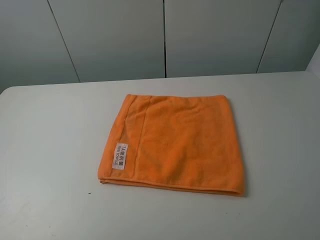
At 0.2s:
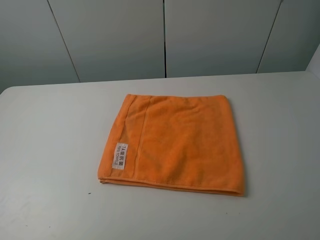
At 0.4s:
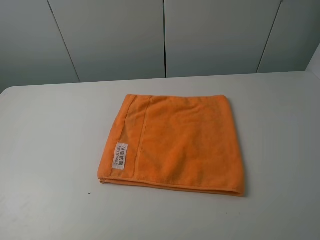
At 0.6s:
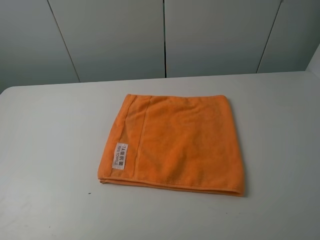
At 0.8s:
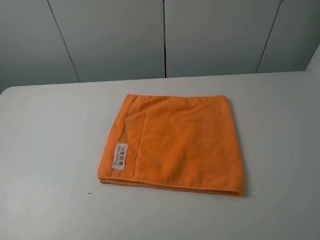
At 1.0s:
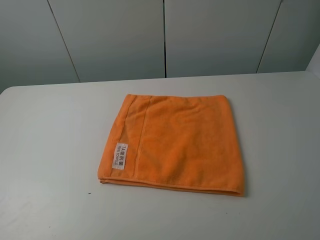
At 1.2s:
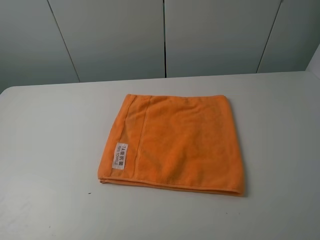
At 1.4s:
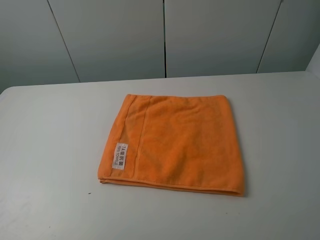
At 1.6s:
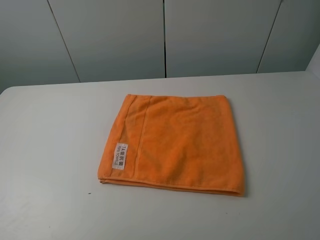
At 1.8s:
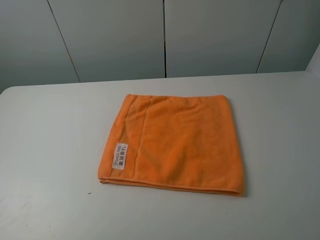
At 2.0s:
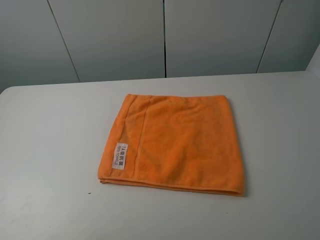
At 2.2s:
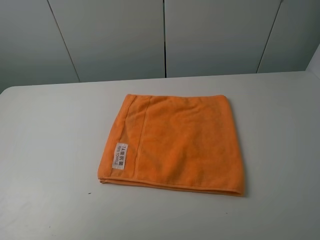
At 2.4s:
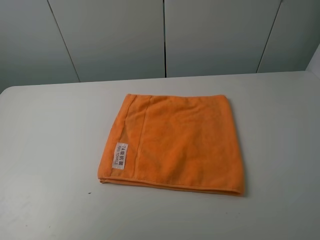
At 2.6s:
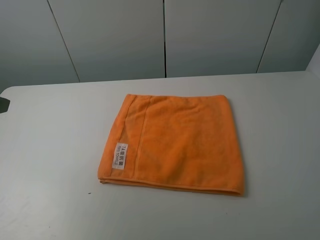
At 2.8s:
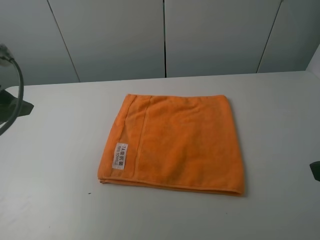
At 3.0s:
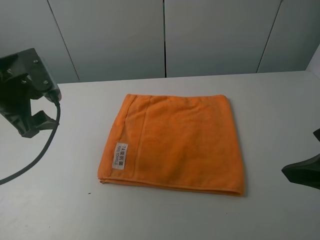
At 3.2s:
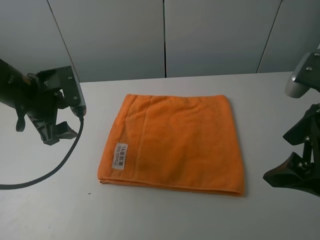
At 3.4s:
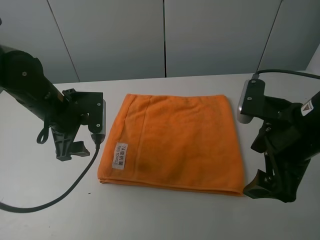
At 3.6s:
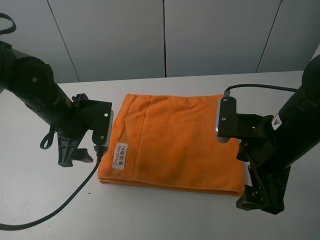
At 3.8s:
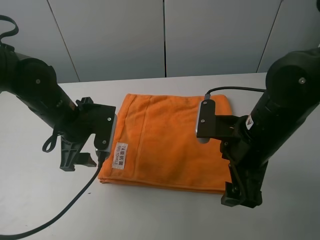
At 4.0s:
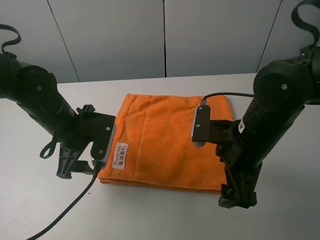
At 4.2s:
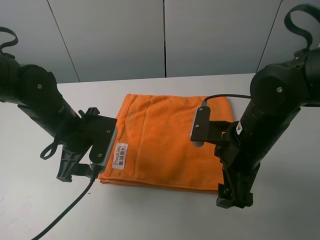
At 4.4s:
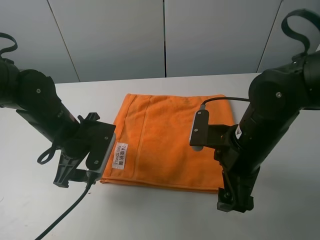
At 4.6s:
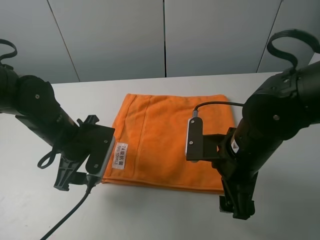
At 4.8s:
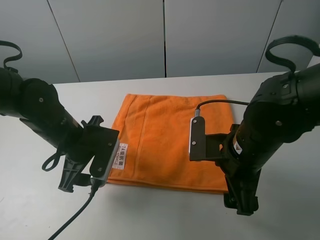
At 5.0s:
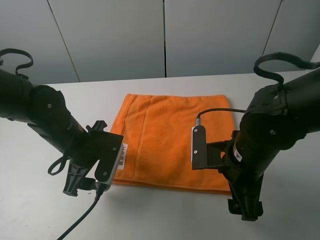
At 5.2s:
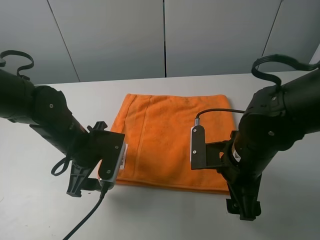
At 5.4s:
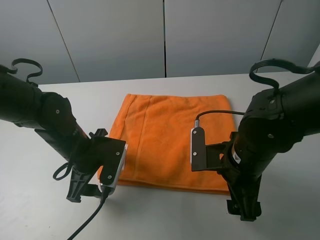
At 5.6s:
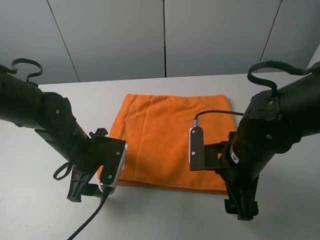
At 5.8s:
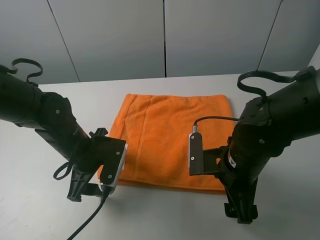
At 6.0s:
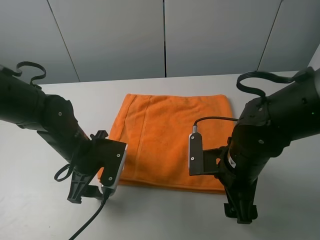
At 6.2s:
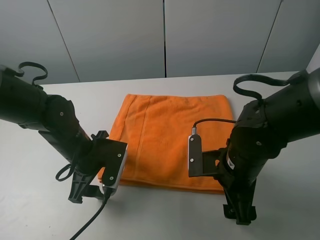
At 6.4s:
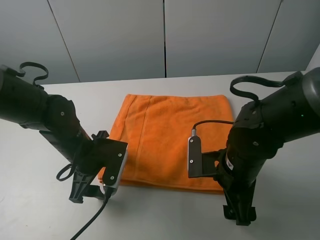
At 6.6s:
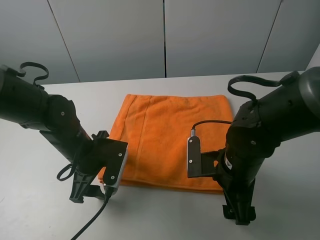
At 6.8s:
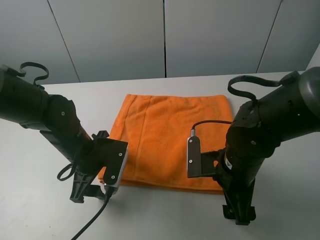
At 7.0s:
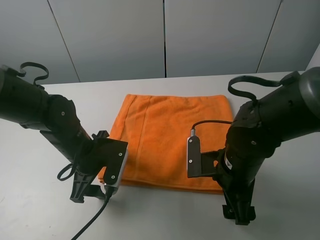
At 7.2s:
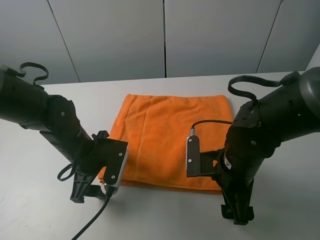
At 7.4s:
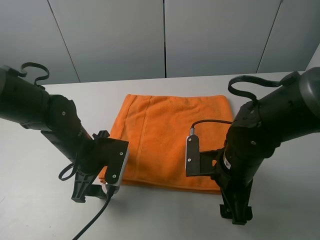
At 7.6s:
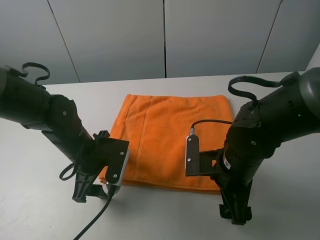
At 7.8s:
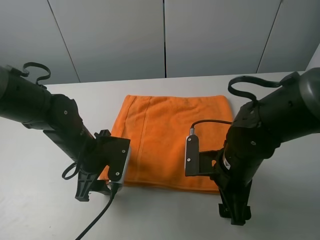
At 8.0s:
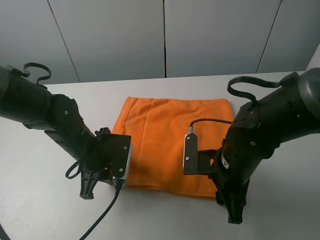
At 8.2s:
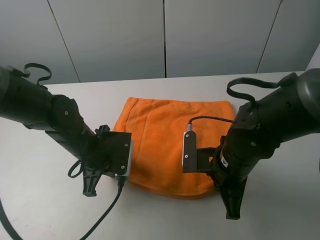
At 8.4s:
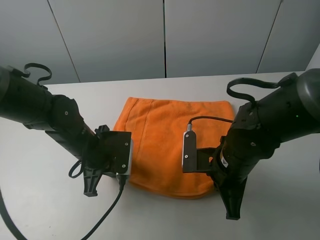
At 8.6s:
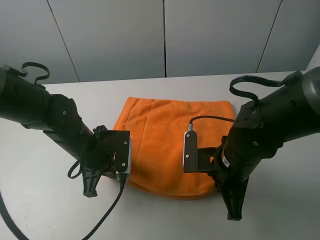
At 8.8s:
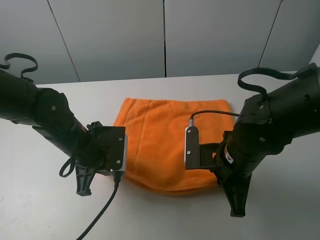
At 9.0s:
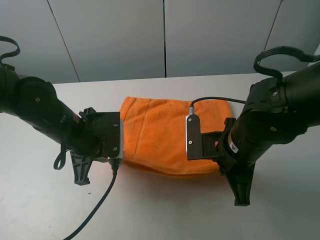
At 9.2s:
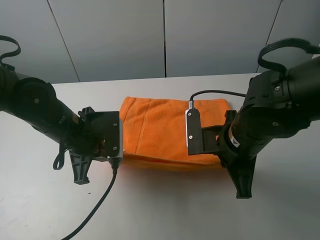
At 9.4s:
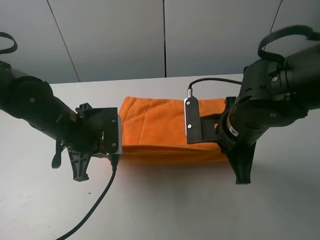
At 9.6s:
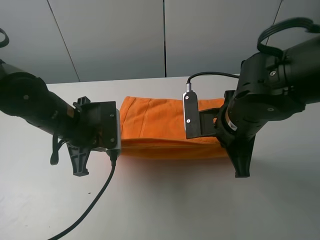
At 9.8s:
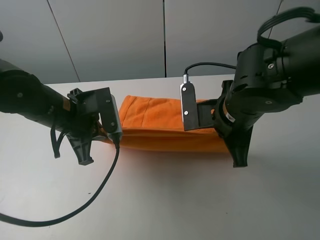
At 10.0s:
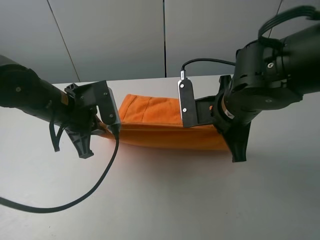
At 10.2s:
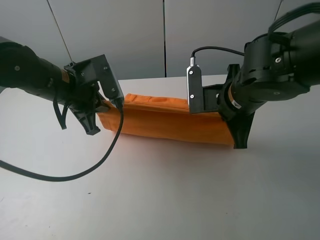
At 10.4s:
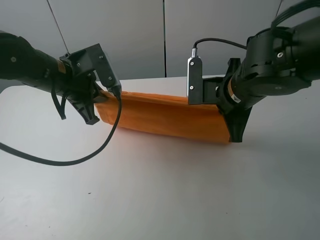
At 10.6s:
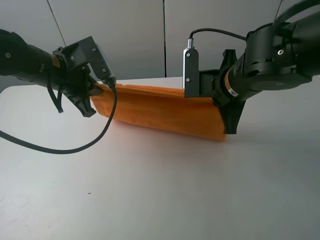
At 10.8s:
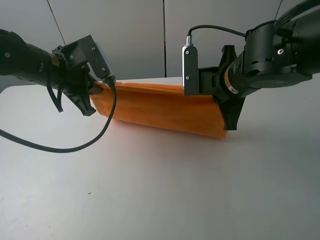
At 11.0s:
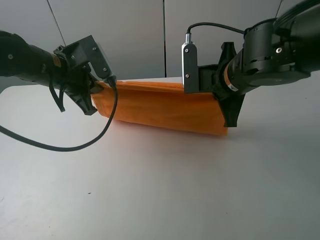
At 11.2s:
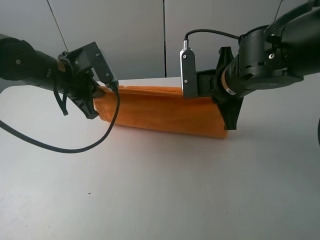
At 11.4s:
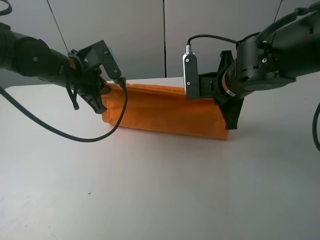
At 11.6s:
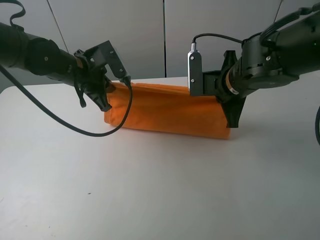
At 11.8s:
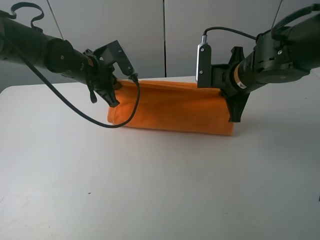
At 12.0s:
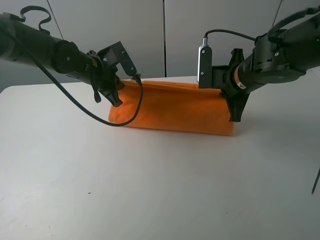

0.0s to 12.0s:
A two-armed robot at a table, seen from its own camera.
Task of the whole recording: fold the towels on the table.
Step, 0.0s to 8.0s: Grasp the orange towel with the right gripper.
0.0s to 1.6s: Both grippers stay about where they are.
1.6s to 3.0s: The left gripper heads forward, covering some 25 cm, while the right gripper heads forward, covering approximately 10 cm.
3.0s to 4.4s: The right gripper goes approximately 15 cm to the left, downward and forward; the left gripper moves to the right and downward, approximately 10 cm.
4.4s to 6.0s: The grippers stay close to where they were, moving slightly.
6.0s to 7.6s: Both grippers stay put.
7.6s to 9.0s: The left gripper heads upward, covering some 5 cm, and closes; the right gripper closes.
9.0s to 10.4s: The right gripper is displaced forward and upward by approximately 10 cm. The left gripper is displaced upward and forward by some 10 cm.
10.4s to 12.0s: Both grippers travel together forward, about 10 cm.

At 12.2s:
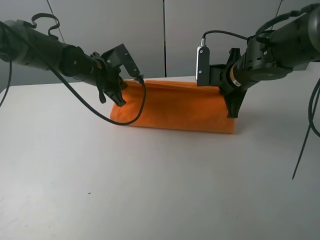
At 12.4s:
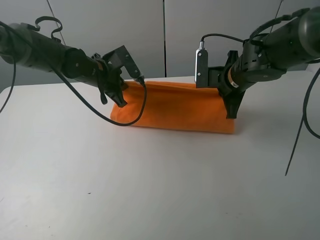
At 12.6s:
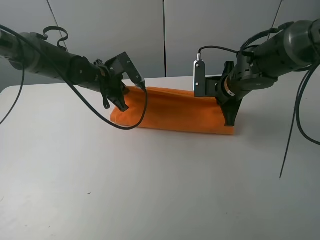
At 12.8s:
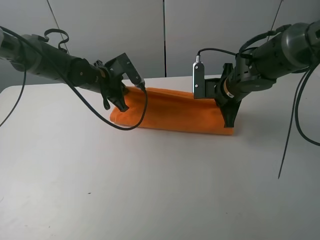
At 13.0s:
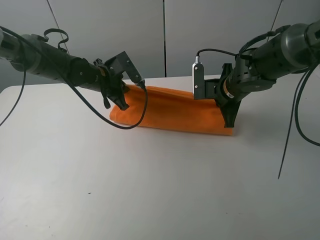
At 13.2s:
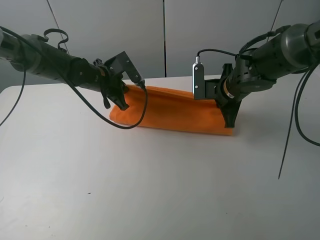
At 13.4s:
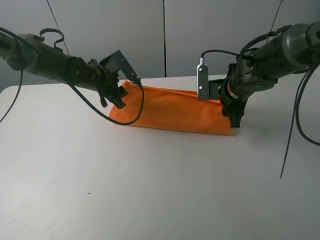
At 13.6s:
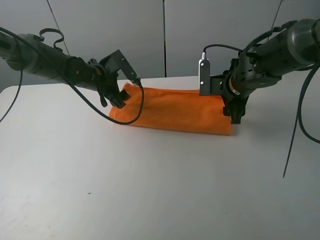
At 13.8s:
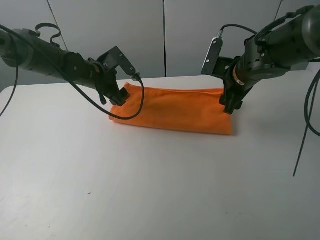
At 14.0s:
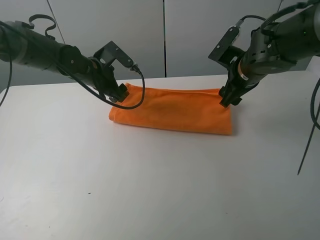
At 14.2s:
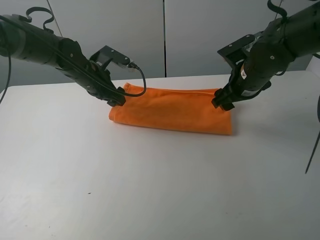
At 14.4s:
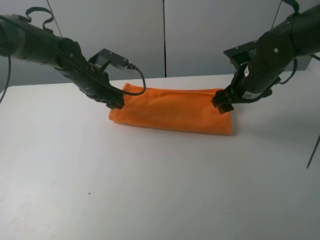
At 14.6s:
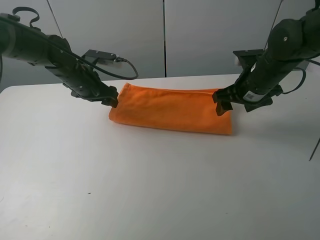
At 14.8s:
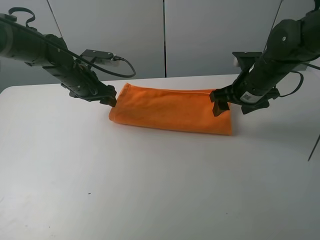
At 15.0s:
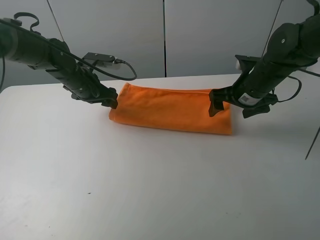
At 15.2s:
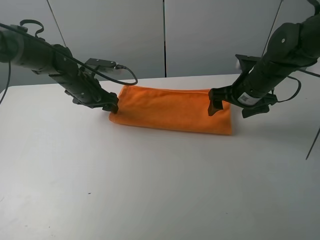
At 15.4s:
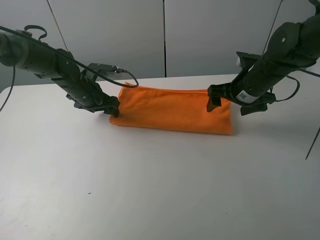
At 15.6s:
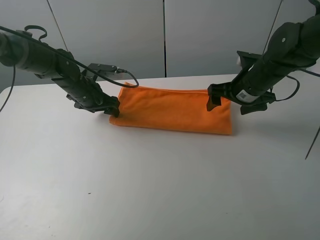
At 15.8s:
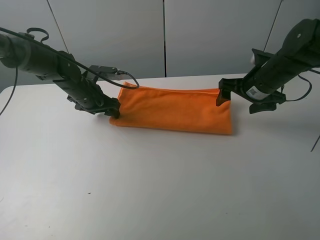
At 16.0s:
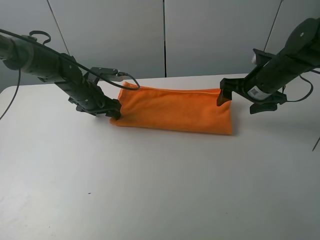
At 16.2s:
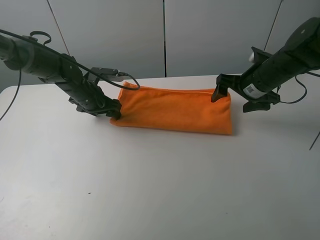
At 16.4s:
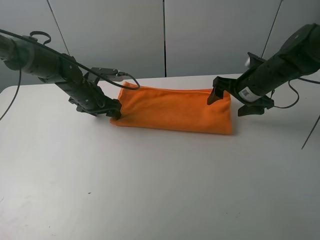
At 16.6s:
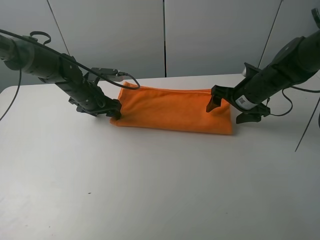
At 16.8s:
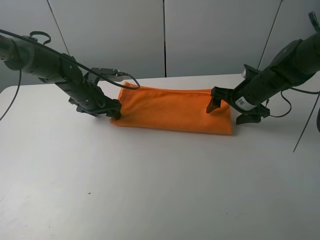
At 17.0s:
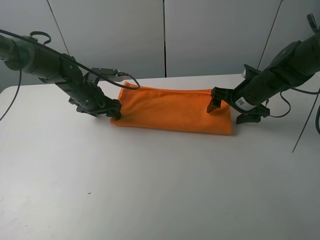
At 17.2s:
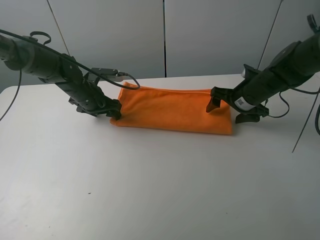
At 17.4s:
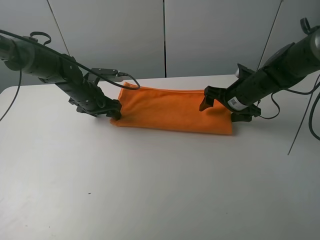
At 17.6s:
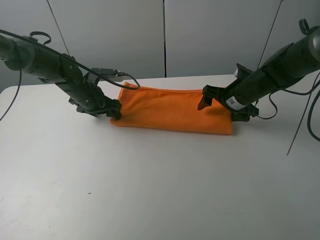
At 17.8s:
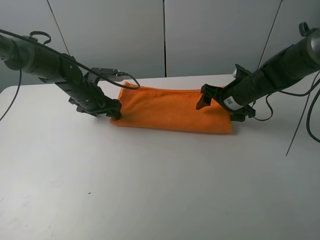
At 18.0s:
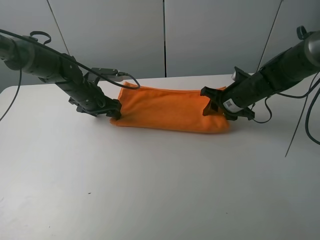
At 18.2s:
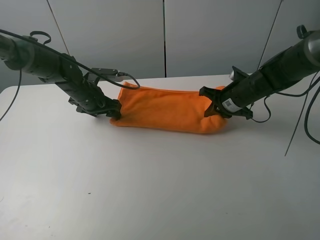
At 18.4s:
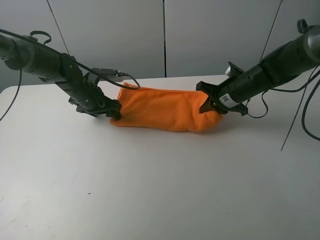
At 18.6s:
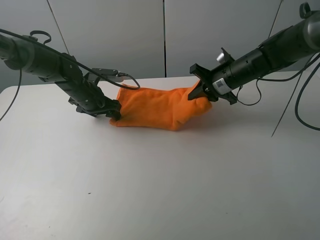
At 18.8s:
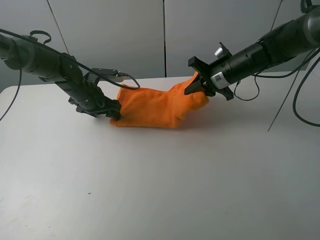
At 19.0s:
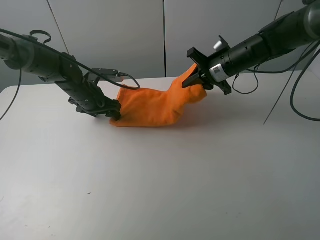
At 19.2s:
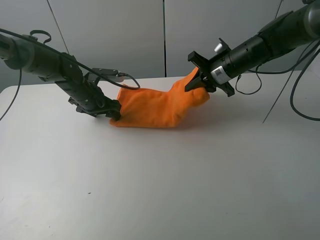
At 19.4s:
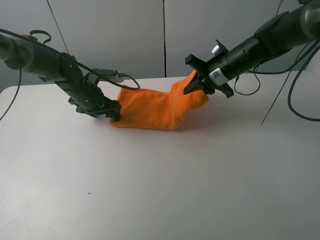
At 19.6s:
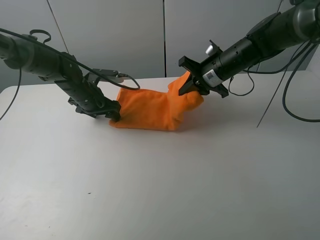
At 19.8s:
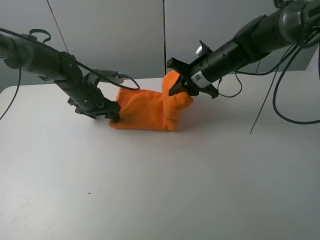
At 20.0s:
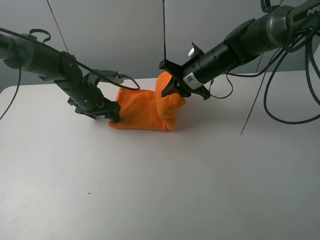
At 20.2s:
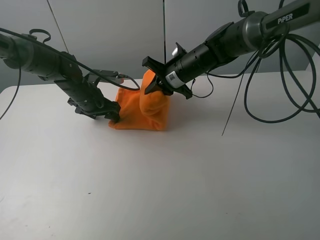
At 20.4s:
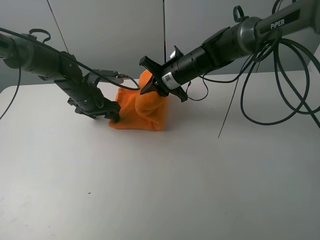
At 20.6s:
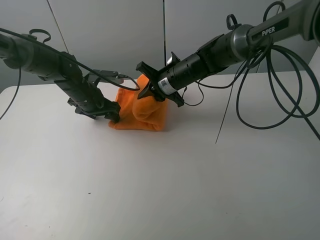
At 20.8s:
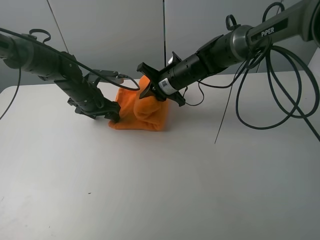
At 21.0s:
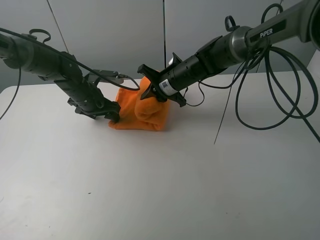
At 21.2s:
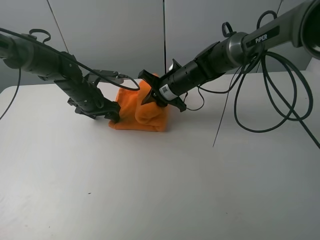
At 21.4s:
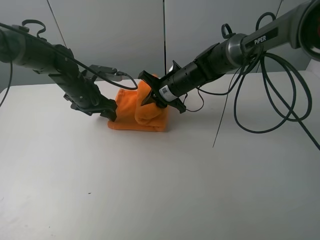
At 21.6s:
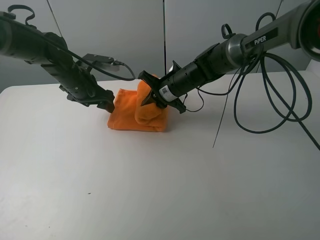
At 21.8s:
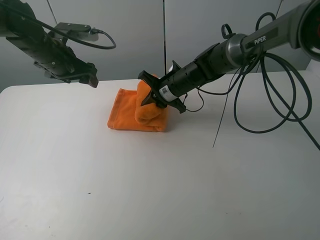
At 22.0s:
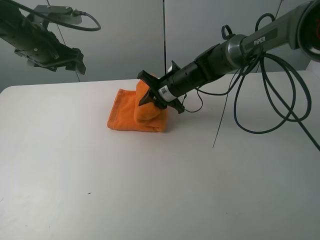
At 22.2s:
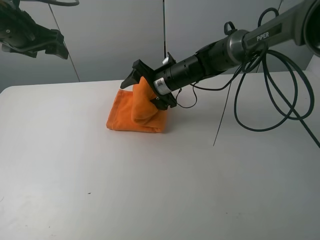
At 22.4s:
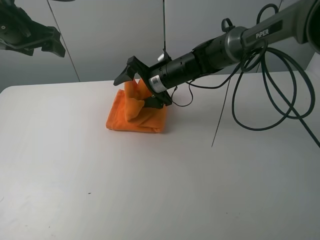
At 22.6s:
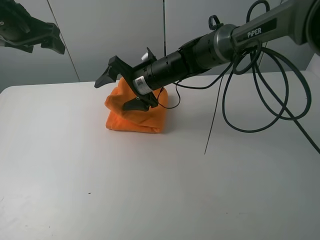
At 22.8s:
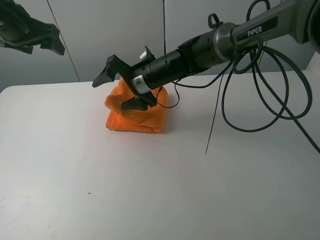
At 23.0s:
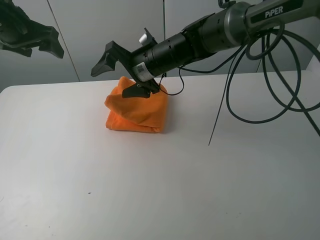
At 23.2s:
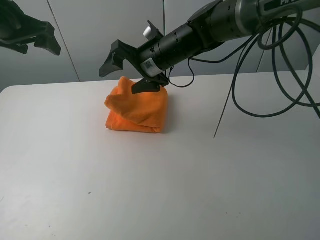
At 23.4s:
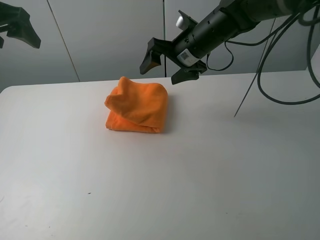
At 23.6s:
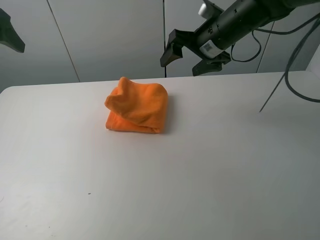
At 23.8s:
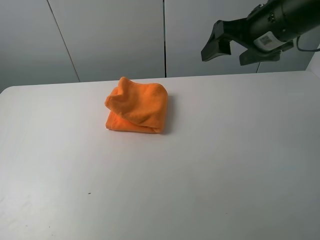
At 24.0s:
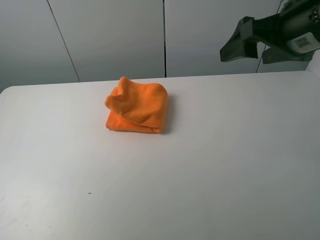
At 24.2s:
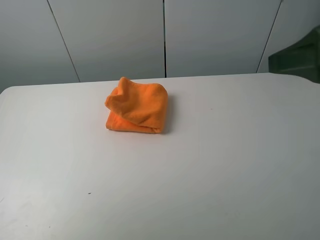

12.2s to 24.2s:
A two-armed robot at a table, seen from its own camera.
Task of the whole recording: fold the towels on the table.
Step, 13.8s to 16.0s: Press on the orange towel with the left gripper.
Step, 16.2s to 22.8s: Fold the orange towel from right to left with right gripper.
12.2s to 13.8s: The right gripper opens. The left gripper opens up.
15.2s to 16.6s: The grippers move only a little.
16.6s to 18.2s: The right gripper closes its fingers.
18.2s to 19.8s: The right gripper is displaced to the left and upward by approximately 10 cm.
19.8s to 21.2s: The right gripper shifts about 10 cm to the left and downward.
21.2s to 22.6s: The left gripper travels upward and to the left by some 20 cm. Meanwhile the right gripper is displaced to the left by approximately 5 cm, and opens its fingers.
22.6s to 24.2s: The left gripper moves backward, about 30 cm. Meanwhile the right gripper heads to the right, backward and upward, covering roughly 40 cm.
